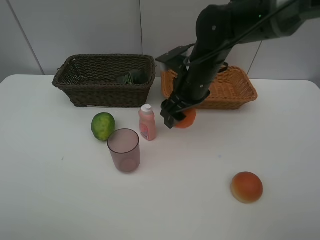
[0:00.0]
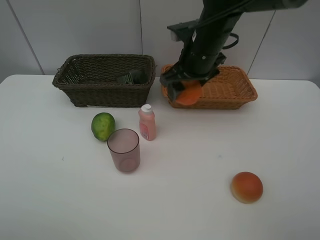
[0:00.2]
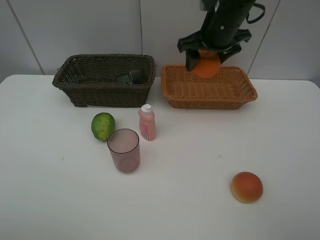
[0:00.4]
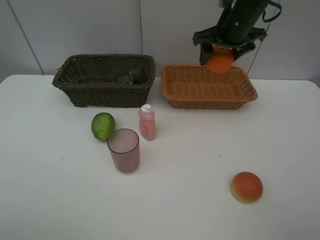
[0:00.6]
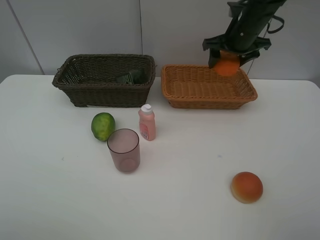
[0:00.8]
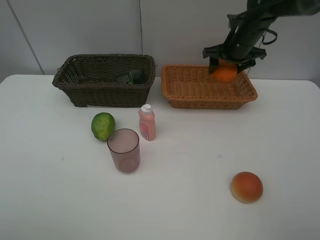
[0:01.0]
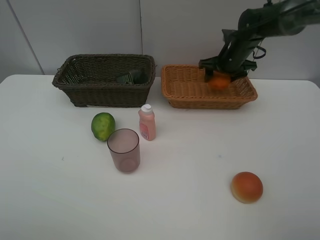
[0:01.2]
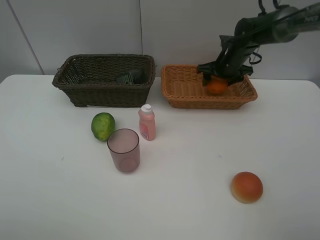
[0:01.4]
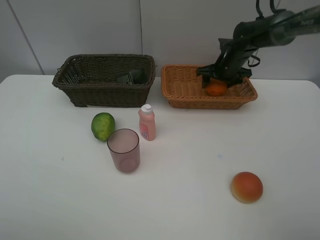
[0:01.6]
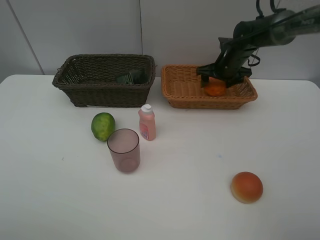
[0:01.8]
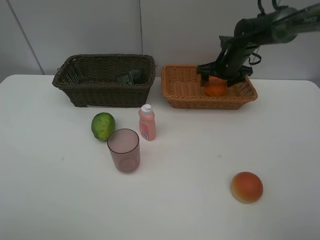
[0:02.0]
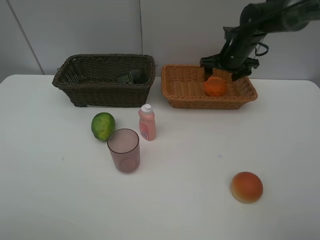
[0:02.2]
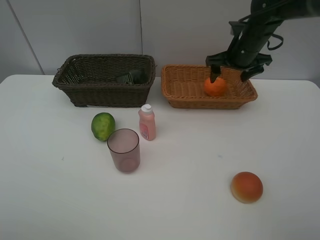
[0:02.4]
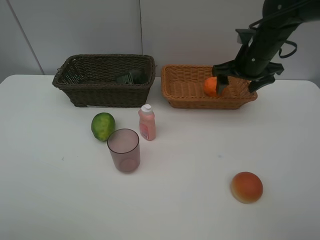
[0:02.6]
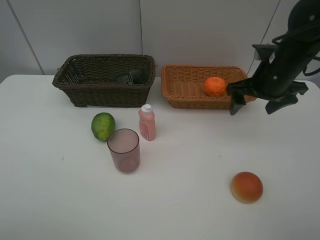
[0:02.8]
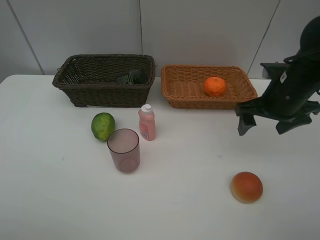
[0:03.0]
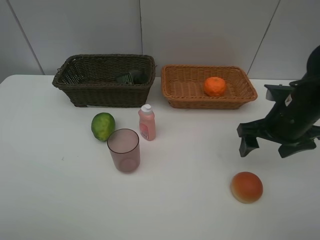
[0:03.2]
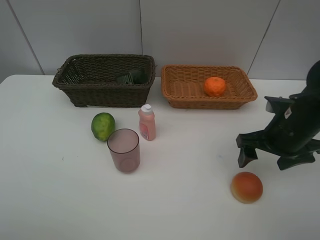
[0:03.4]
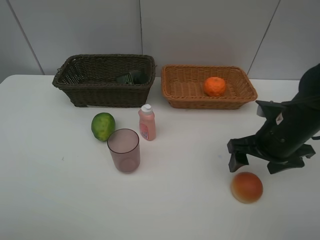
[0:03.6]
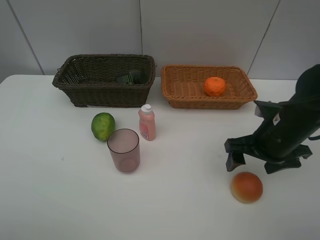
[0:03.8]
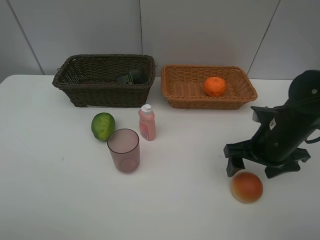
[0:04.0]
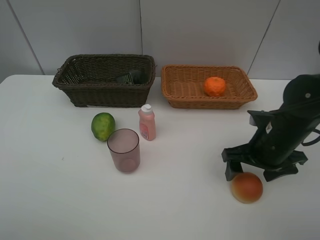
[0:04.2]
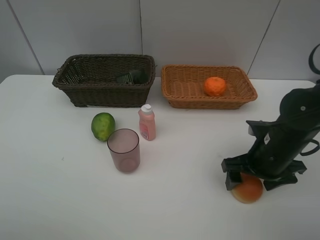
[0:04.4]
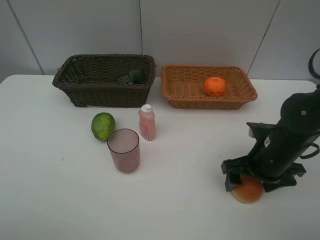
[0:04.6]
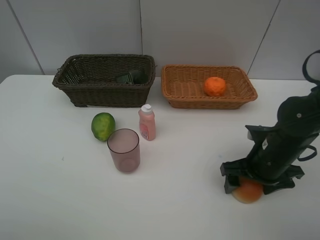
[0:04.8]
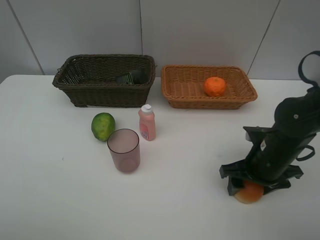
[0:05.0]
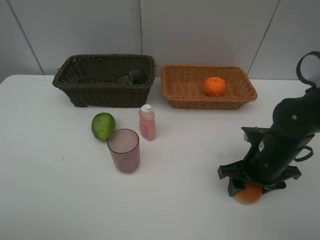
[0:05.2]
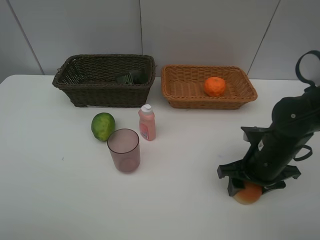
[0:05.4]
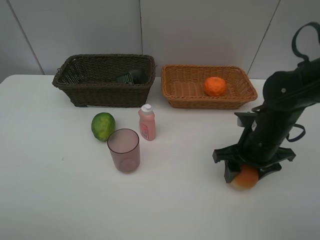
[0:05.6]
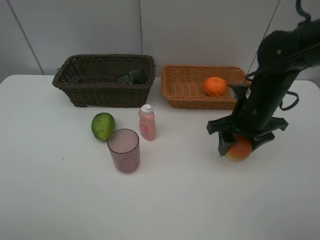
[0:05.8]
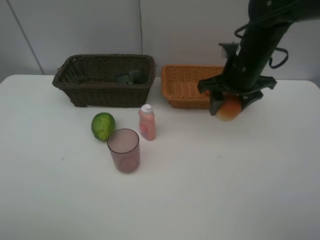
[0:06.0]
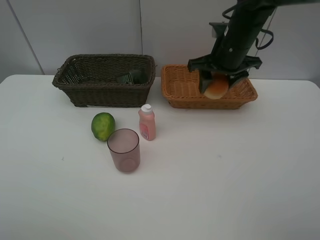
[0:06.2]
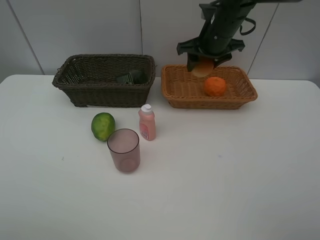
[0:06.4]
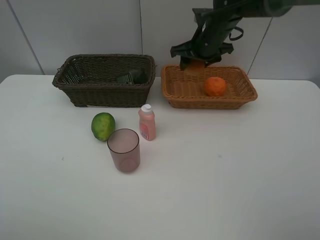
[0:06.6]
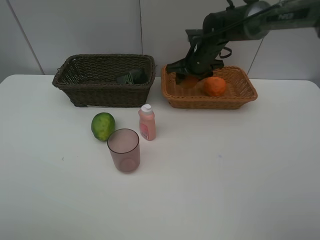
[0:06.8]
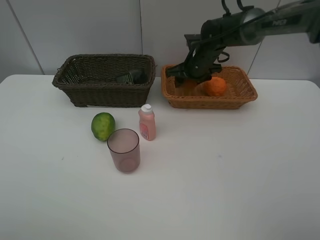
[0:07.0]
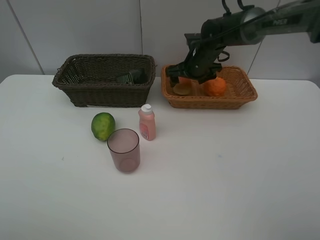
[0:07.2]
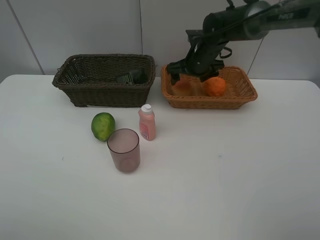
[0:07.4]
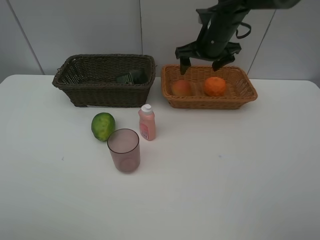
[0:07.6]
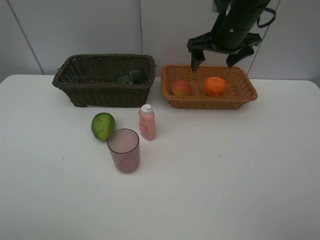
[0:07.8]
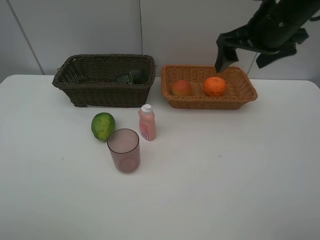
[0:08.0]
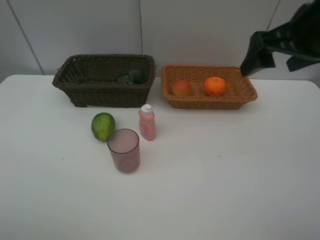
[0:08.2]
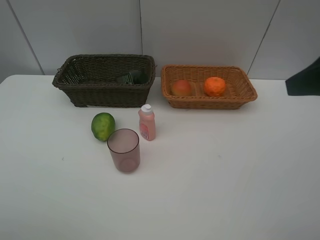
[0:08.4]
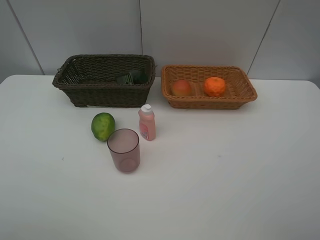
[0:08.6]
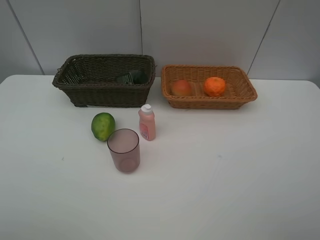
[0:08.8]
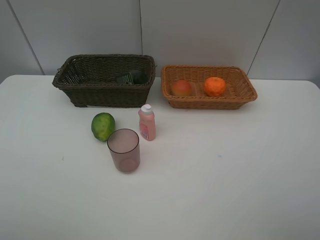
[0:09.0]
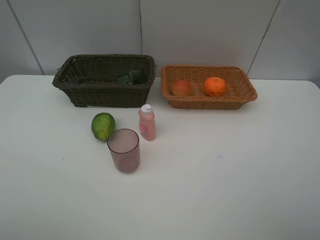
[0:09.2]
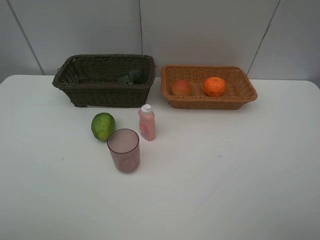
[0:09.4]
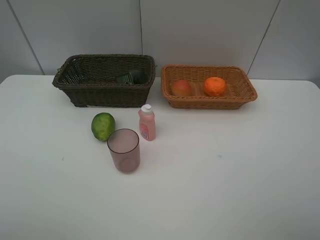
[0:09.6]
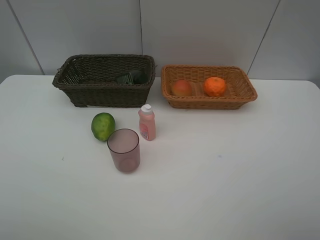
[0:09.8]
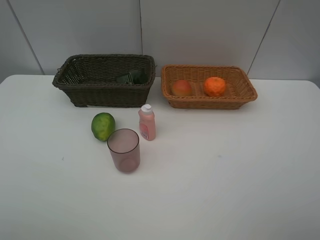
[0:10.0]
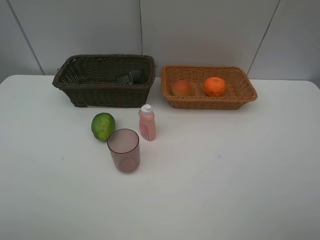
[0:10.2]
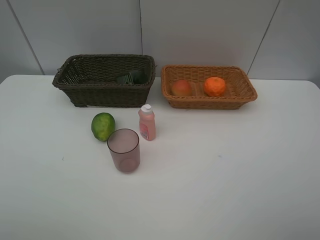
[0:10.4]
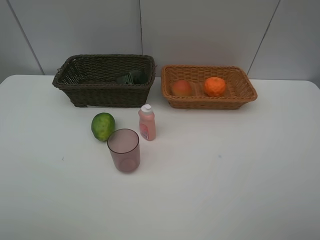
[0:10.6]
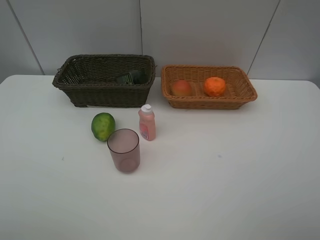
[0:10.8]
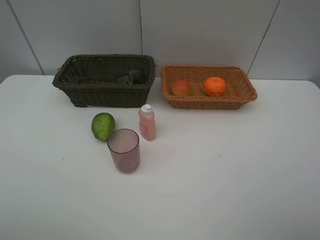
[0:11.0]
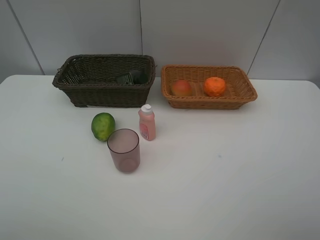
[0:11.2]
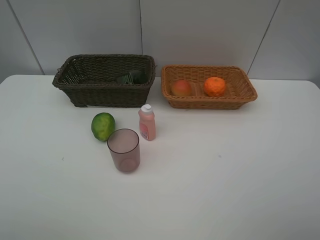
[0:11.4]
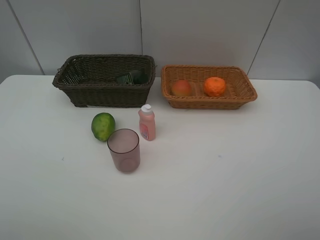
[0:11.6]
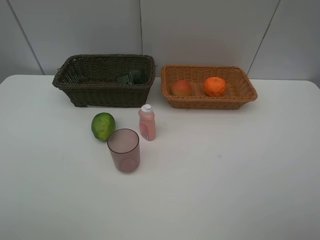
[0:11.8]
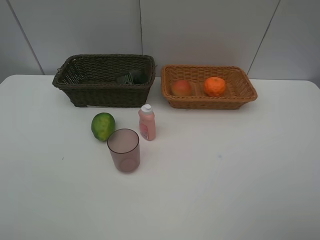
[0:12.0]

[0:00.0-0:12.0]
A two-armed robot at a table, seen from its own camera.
Task of the whole recording: place multiple objects separately in different baskets.
0:00.0 to 0:01.6: The right gripper travels forward, to the right and downward by some 20 cm.
0:01.6 to 0:03.0: The right gripper shifts approximately 20 cm backward.
0:03.0 to 0:04.4: The right gripper is displaced downward and backward by roughly 10 cm.
0:04.4 to 0:06.0: The right gripper moves forward, upward and to the left, about 20 cm, and closes.
0:06.0 to 0:07.6: The right gripper shifts about 5 cm forward, and opens its fingers.
0:07.6 to 0:09.0: The right gripper travels backward by roughly 40 cm.

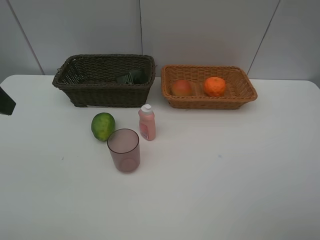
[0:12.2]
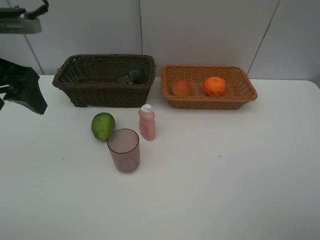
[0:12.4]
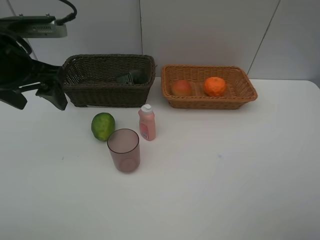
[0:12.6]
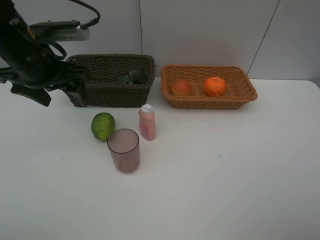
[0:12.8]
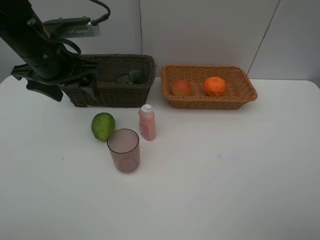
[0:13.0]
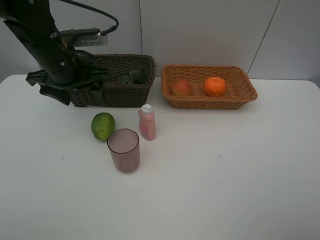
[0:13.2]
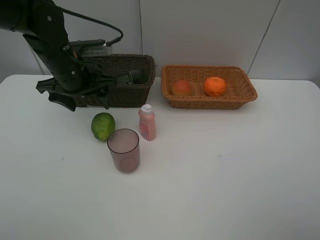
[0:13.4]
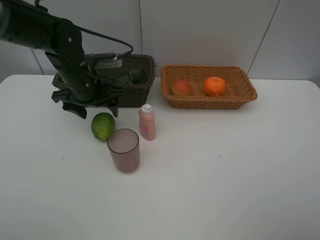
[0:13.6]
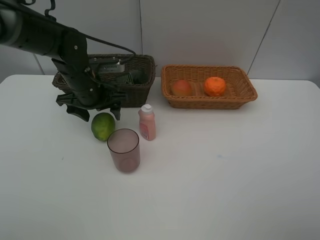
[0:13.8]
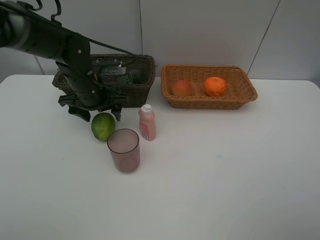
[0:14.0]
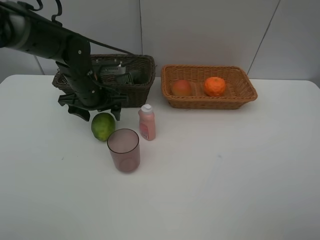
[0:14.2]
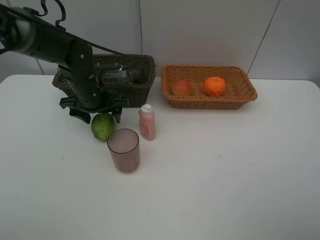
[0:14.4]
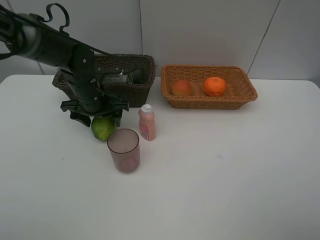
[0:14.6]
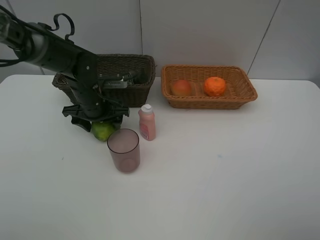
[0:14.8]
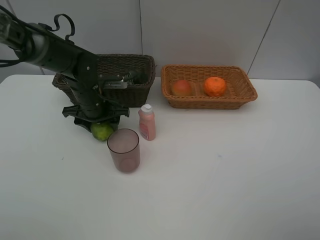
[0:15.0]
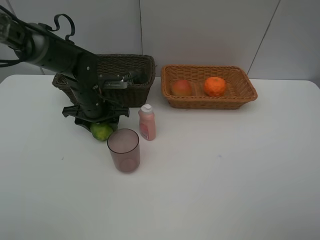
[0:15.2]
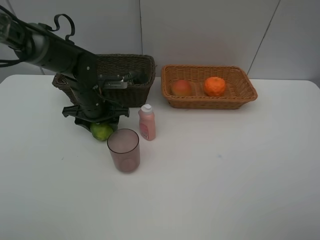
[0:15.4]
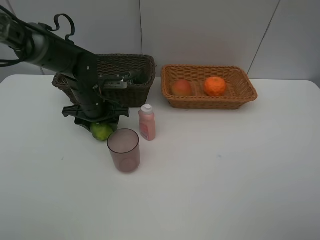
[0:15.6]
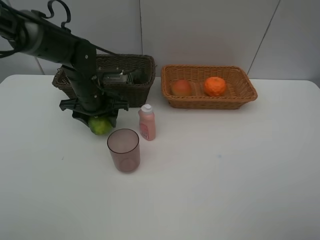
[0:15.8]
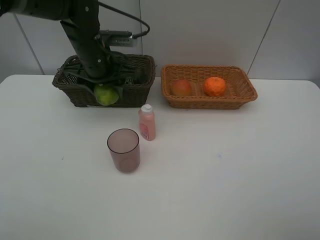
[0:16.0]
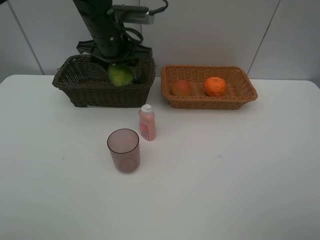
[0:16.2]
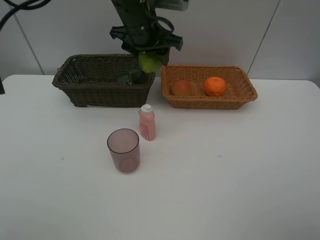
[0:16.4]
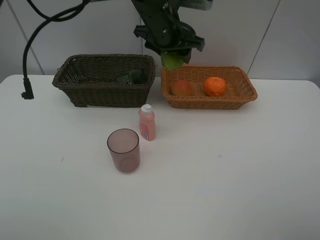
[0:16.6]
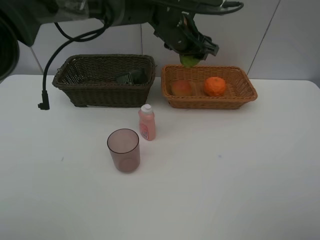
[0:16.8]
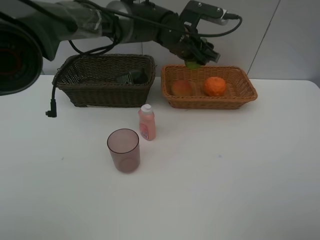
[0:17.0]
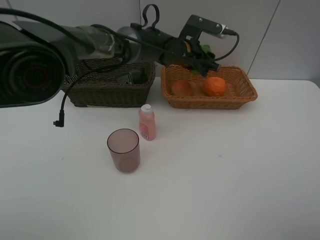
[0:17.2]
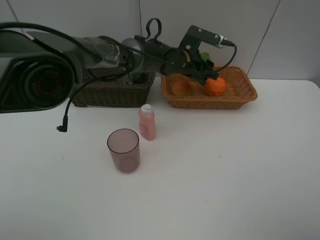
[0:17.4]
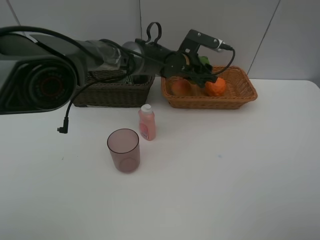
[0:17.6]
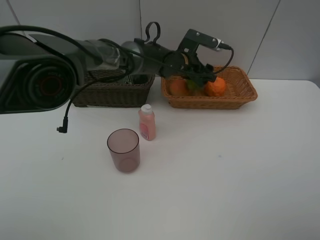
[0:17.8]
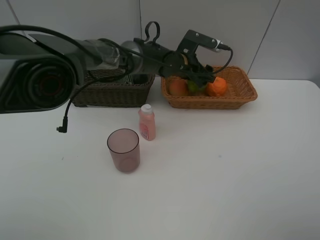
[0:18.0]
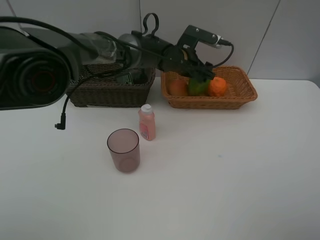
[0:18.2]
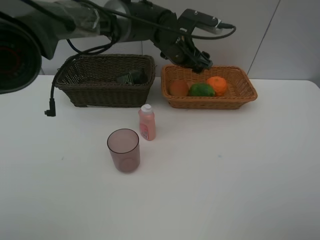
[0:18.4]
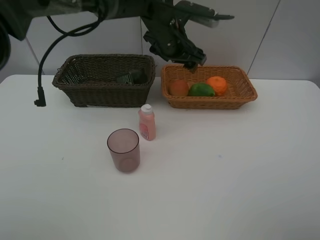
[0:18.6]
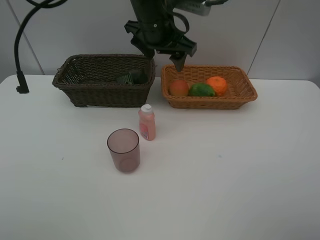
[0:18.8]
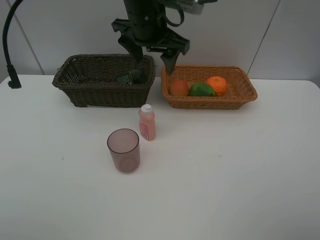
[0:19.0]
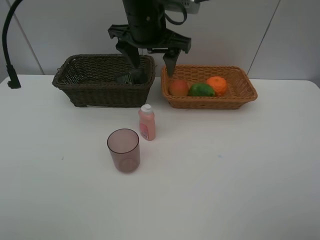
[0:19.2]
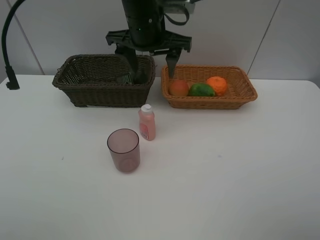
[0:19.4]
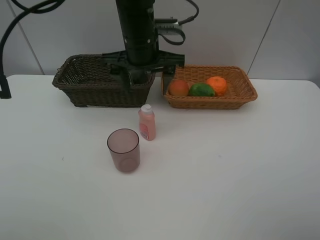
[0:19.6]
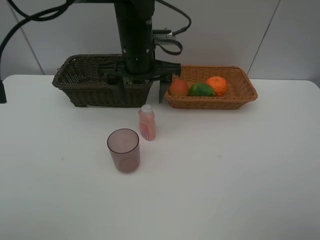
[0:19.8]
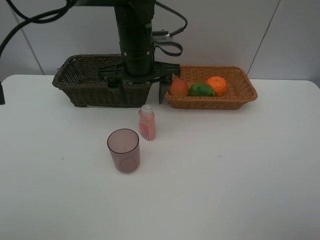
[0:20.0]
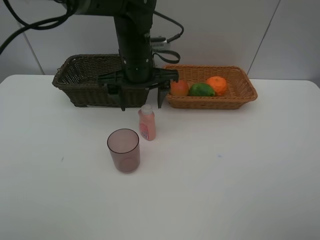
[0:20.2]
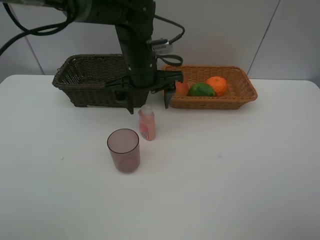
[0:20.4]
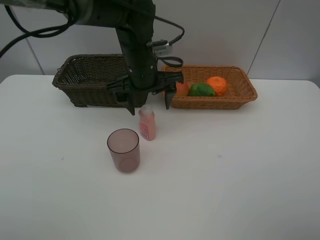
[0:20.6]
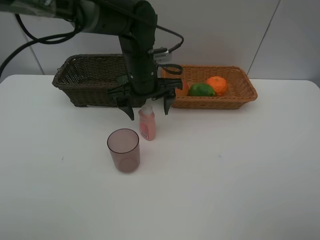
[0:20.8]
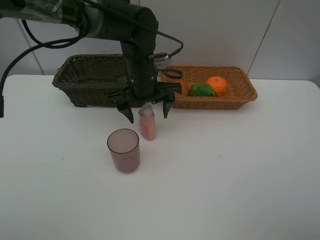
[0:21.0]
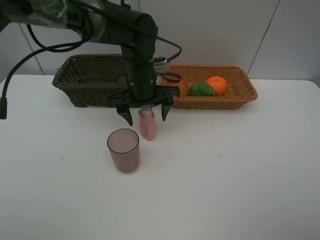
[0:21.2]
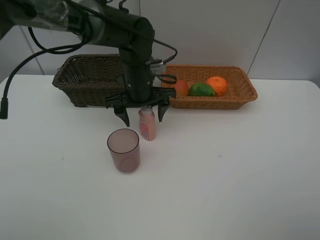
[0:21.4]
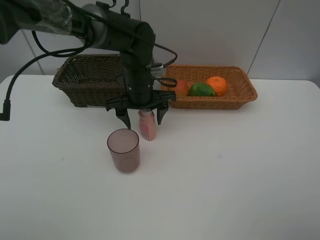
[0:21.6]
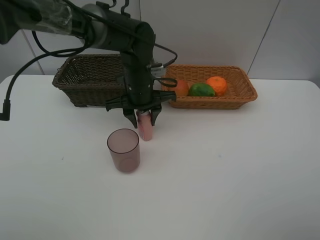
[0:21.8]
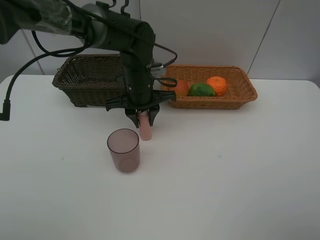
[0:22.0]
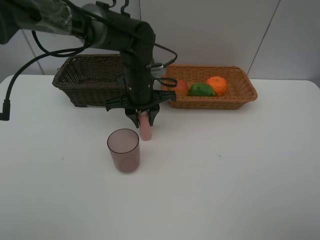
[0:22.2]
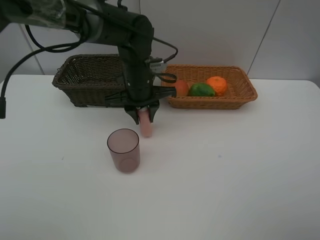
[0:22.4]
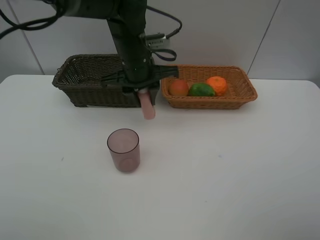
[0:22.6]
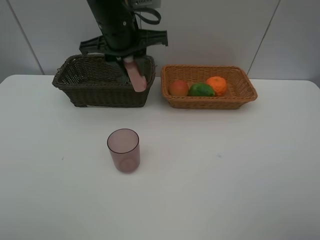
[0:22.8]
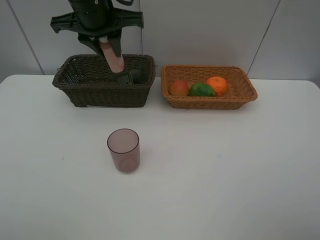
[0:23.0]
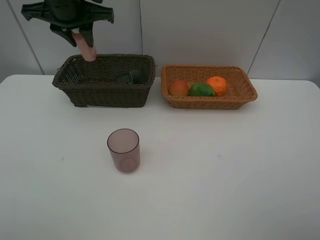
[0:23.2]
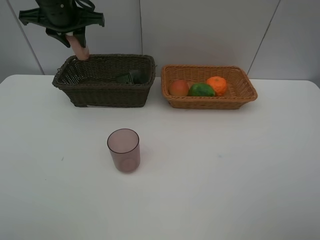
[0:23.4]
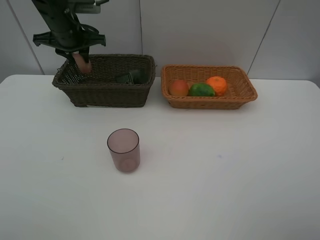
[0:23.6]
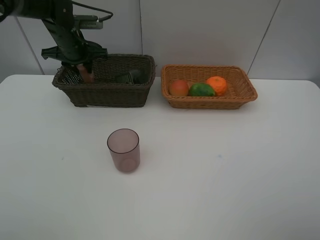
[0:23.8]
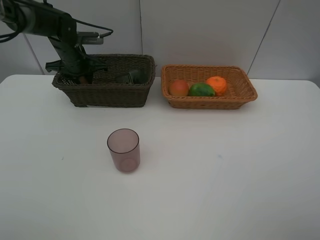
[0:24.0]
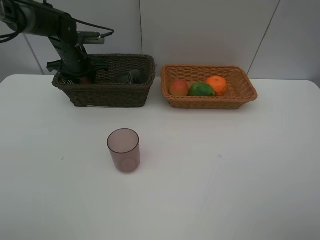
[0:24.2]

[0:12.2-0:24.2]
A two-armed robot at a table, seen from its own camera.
Task of the whole recording: place multiple objects separately in different baskets.
0:12.2 to 0:13.8: The left gripper is displaced downward, forward and to the right by approximately 25 cm.
0:13.8 to 0:15.2: The grippers make only small movements.
0:15.2 to 0:16.6: The left gripper travels to the right and upward by approximately 20 cm.
0:16.6 to 0:18.2: The left gripper is displaced downward by some 10 cm.
0:18.2 to 0:19.8: The left gripper shifts some 15 cm backward, to the left and upward.
0:19.8 to 0:21.2: The left gripper is displaced downward by about 5 cm.
0:21.2 to 0:22.6: The left gripper is displaced upward by roughly 5 cm, and closes.
0:22.6 to 0:24.2: The left gripper travels to the left, forward and downward by some 25 cm.
